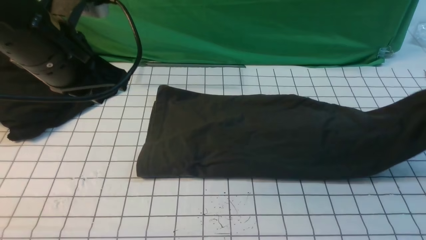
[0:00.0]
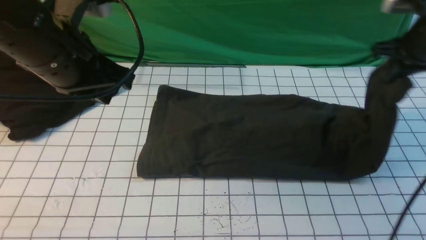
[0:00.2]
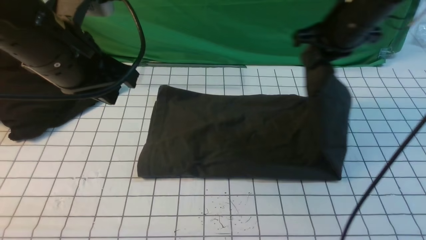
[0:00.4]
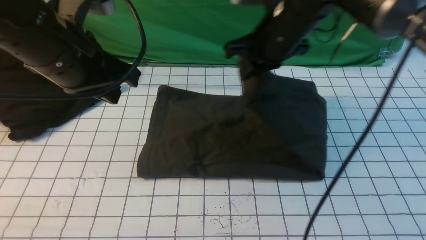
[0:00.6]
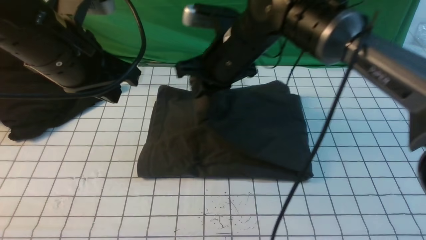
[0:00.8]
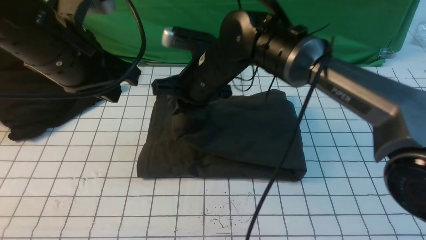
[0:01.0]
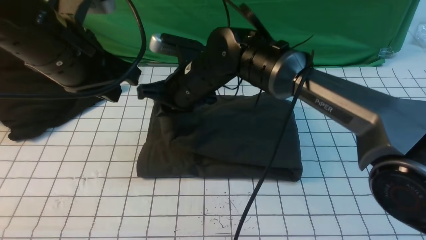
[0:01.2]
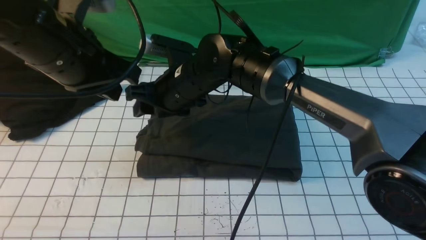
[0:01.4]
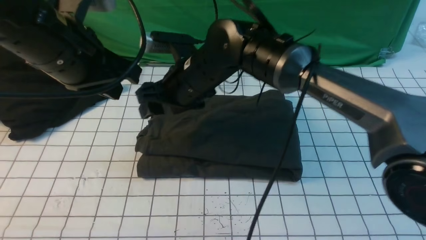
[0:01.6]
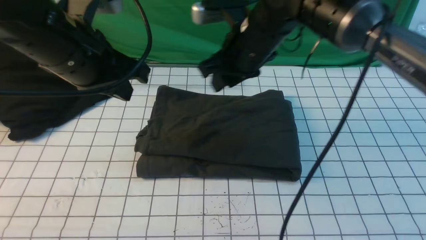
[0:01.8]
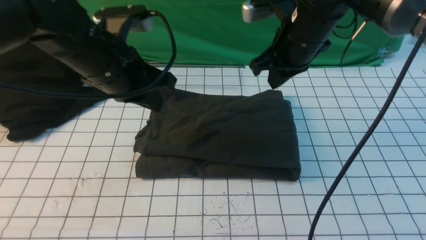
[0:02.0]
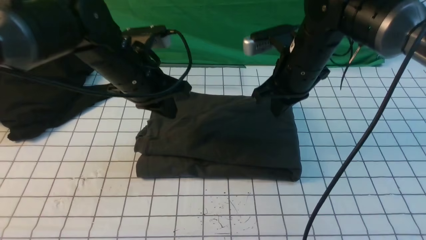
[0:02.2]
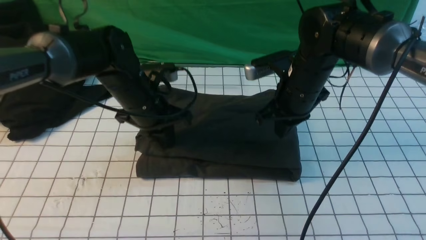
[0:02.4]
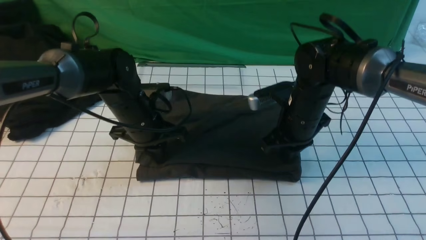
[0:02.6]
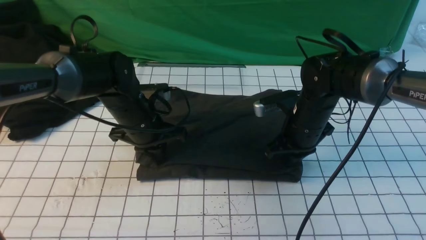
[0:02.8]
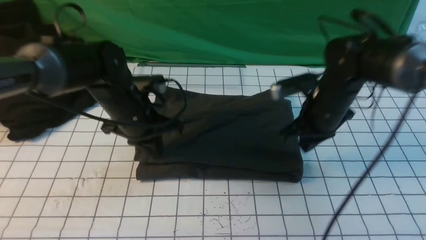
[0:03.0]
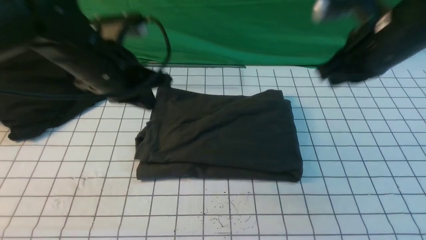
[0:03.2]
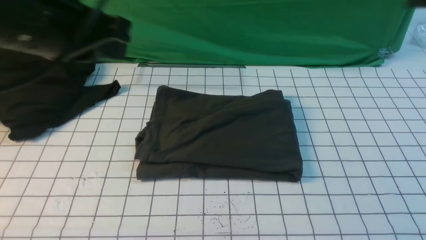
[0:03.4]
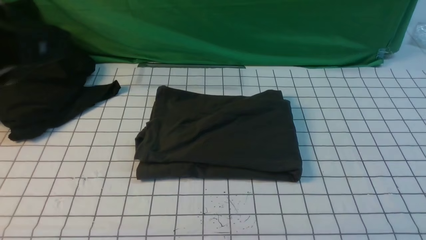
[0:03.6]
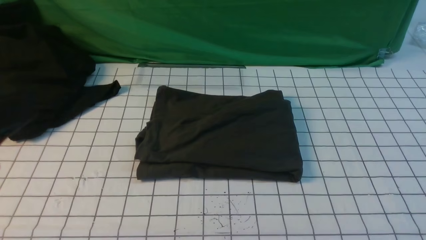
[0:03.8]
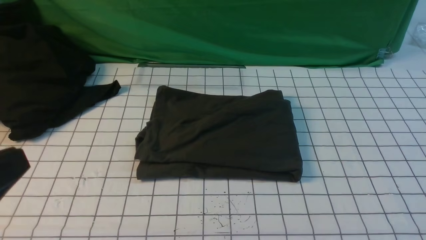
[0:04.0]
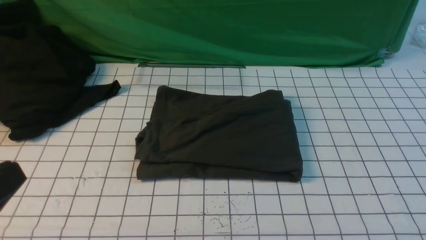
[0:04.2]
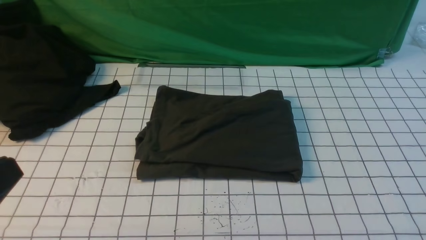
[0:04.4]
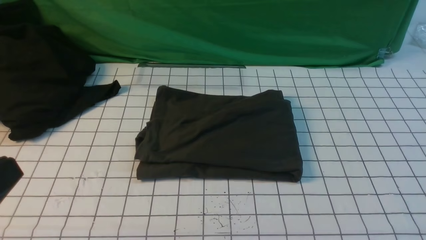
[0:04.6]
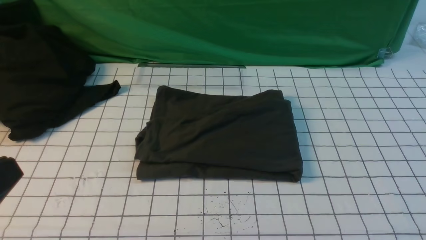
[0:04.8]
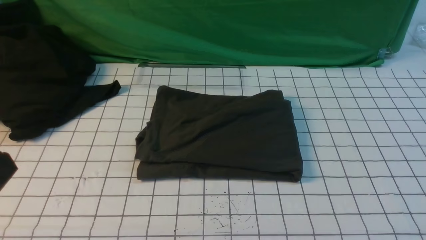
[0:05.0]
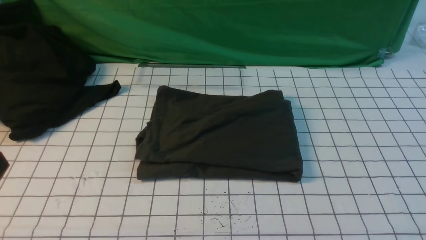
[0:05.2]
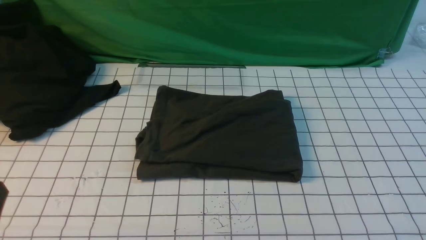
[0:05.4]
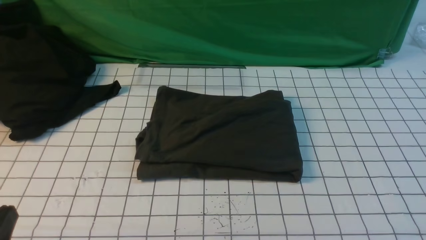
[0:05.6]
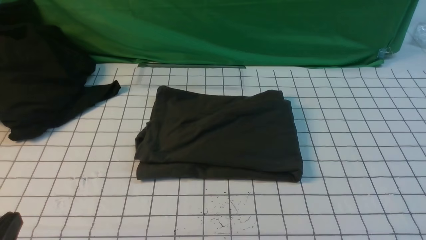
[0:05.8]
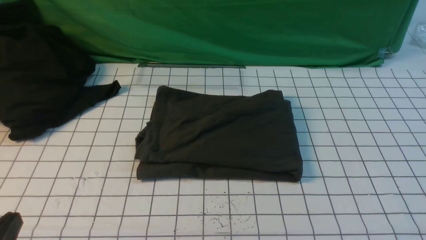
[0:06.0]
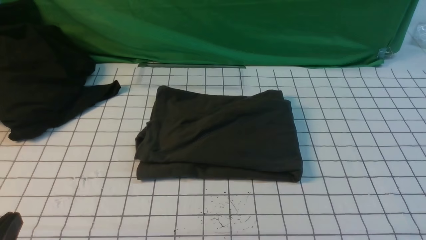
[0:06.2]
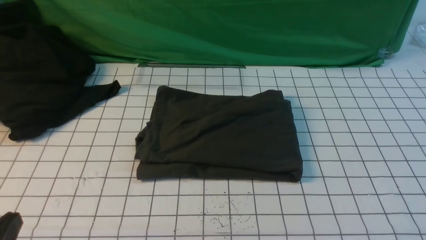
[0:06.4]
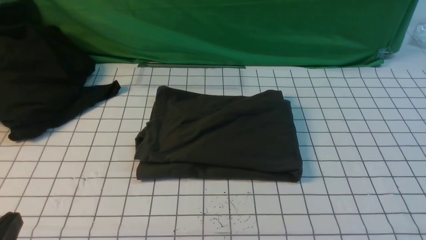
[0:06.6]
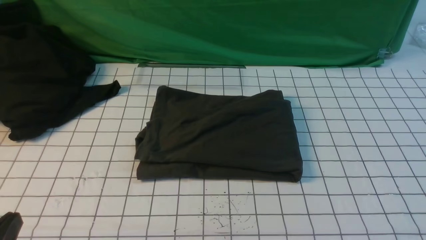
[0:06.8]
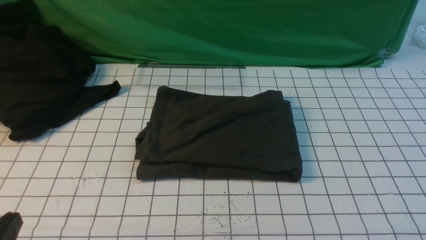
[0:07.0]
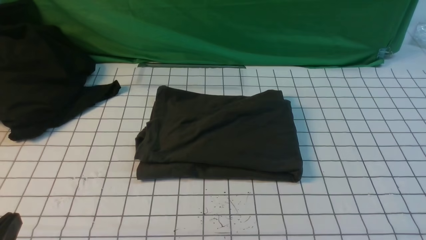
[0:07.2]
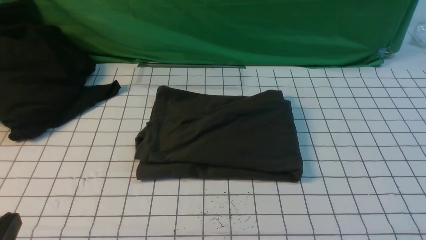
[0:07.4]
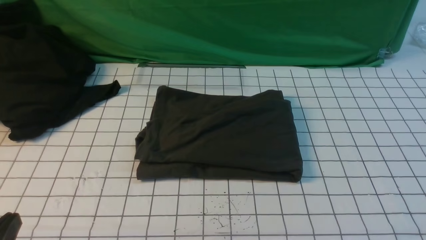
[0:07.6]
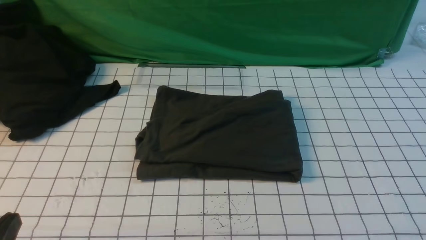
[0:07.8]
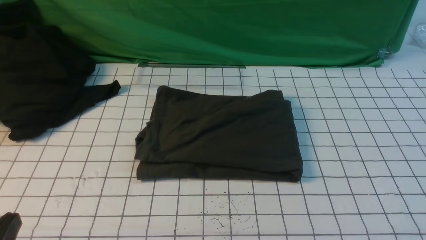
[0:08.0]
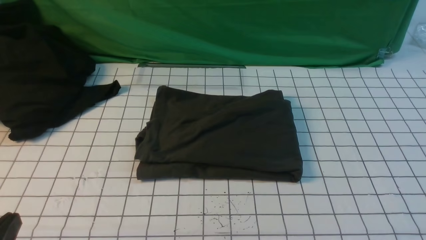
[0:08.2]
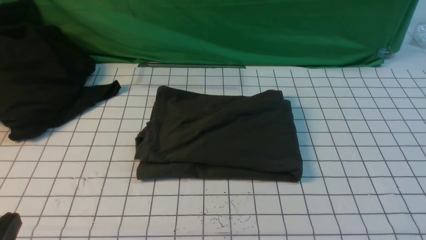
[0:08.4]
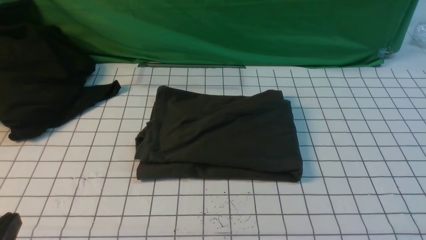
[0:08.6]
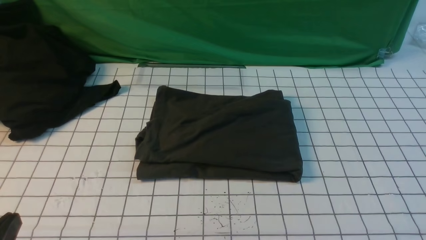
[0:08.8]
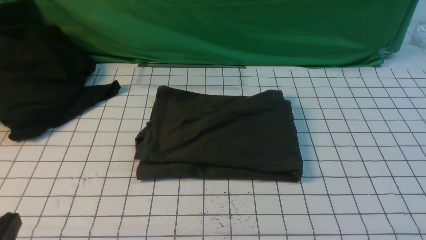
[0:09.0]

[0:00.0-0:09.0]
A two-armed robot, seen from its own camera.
Step, 0:00.0 to 0:01.2: use the right arm to drag the right edge of the fabric to the left and folds it over the left edge.
0:00.0 to 0:01.6: The right gripper travels to the left by some 40 cm, and opens.
0:01.6 to 0:03.0: The right gripper goes some 20 cm to the right, and closes. Meanwhile the left gripper heads downward and forward, covering approximately 15 cm.
0:03.0 to 0:04.4: The left gripper travels backward by some 30 cm. Meanwhile the right gripper is displaced backward and to the right by about 35 cm.
0:04.4 to 0:06.0: The left gripper moves downward, approximately 10 cm.
0:07.6 to 0:09.0: Both grippers stay about where they are.
